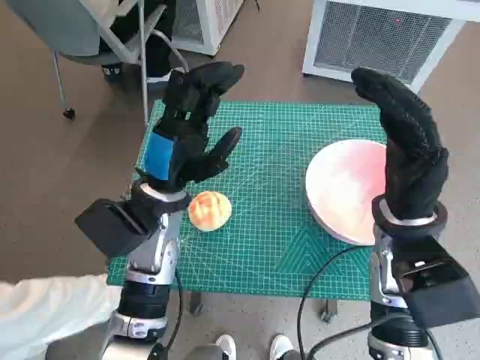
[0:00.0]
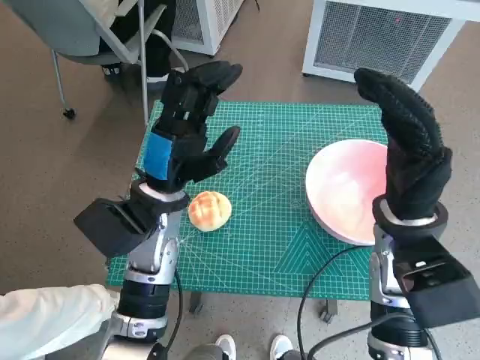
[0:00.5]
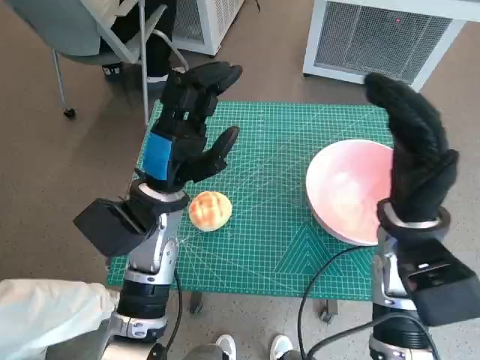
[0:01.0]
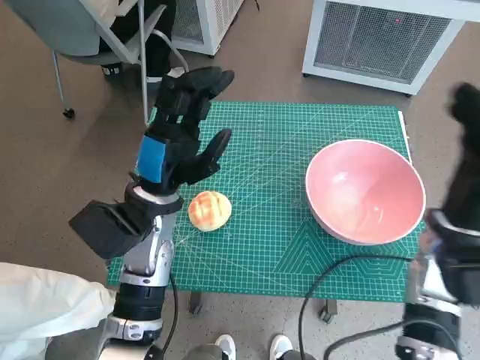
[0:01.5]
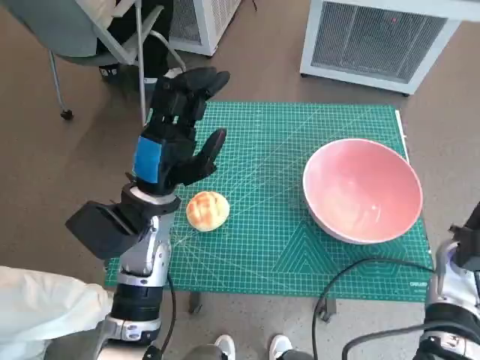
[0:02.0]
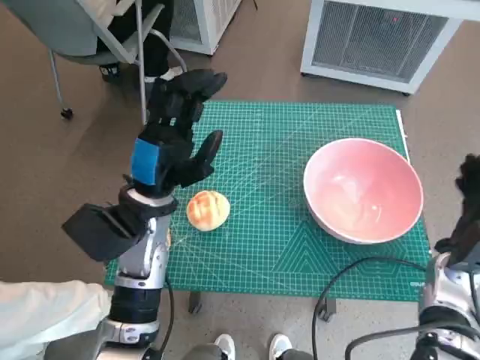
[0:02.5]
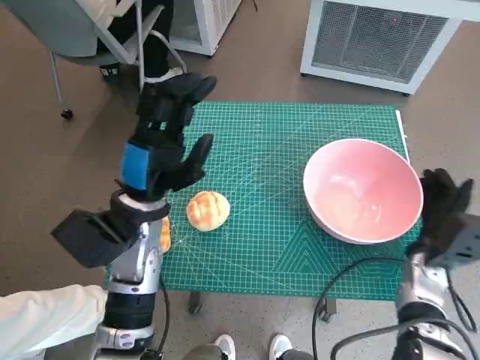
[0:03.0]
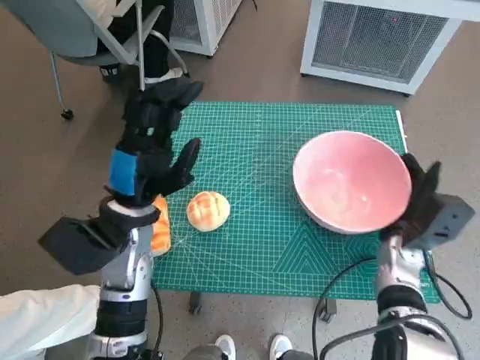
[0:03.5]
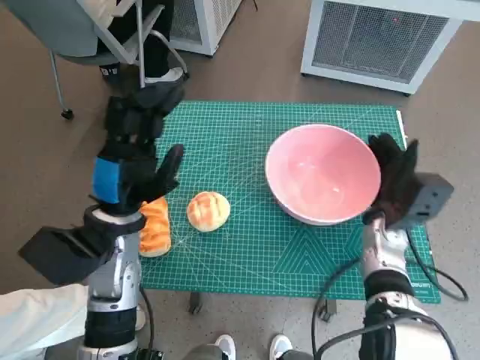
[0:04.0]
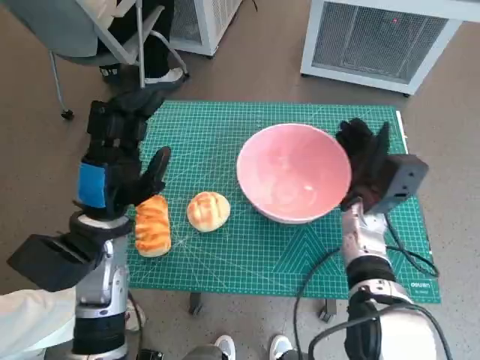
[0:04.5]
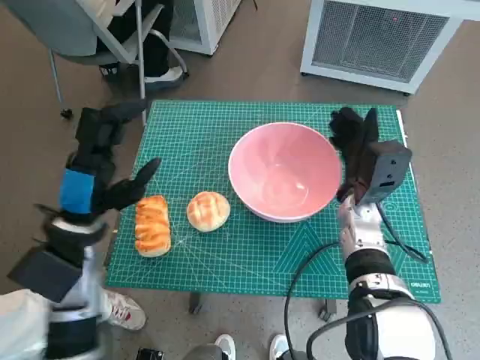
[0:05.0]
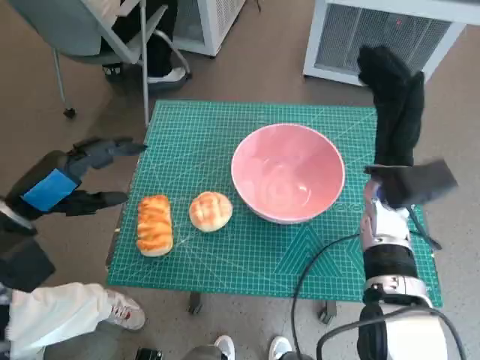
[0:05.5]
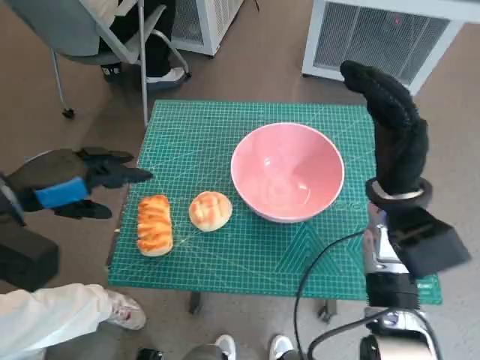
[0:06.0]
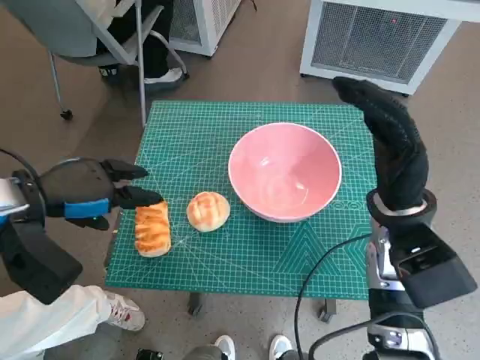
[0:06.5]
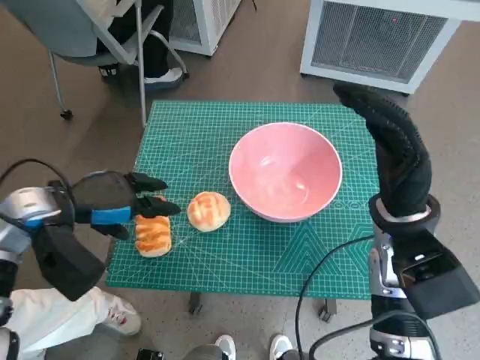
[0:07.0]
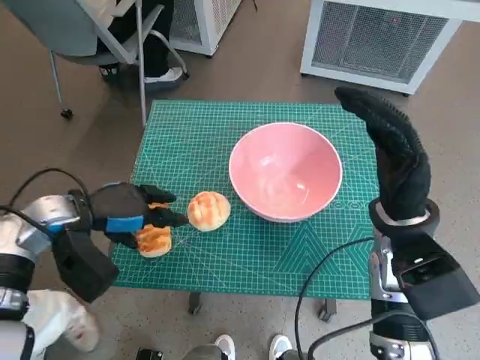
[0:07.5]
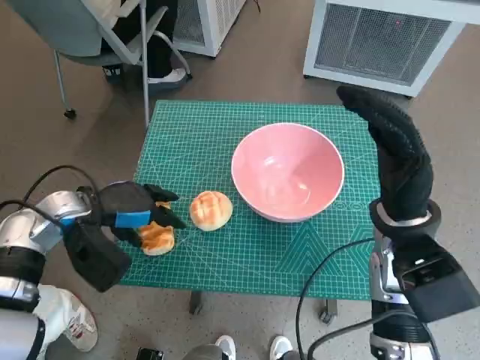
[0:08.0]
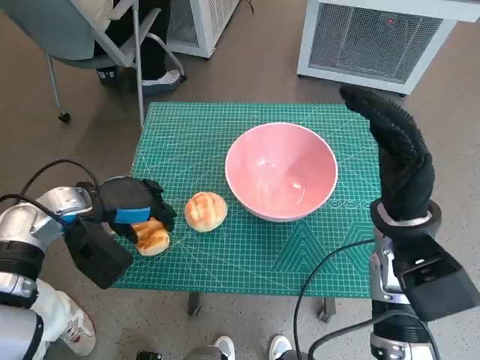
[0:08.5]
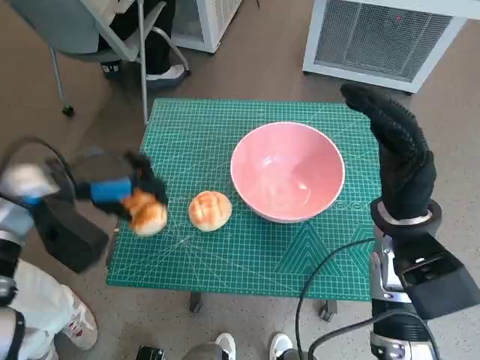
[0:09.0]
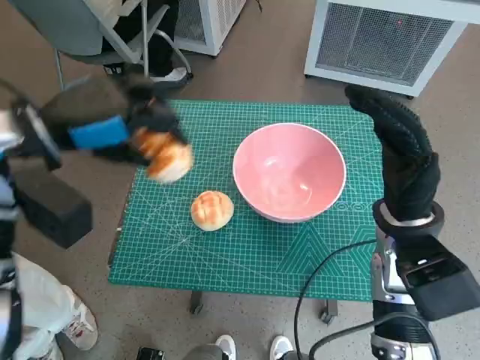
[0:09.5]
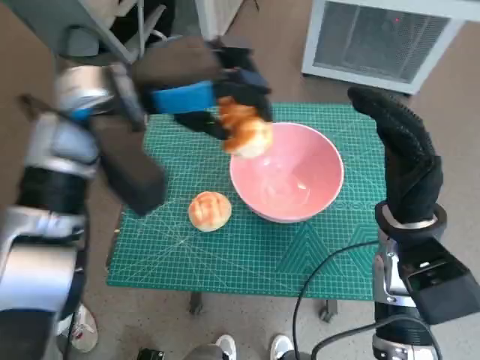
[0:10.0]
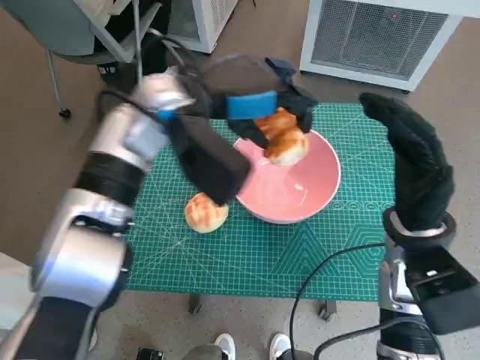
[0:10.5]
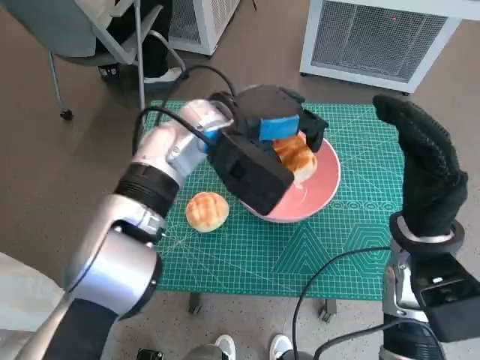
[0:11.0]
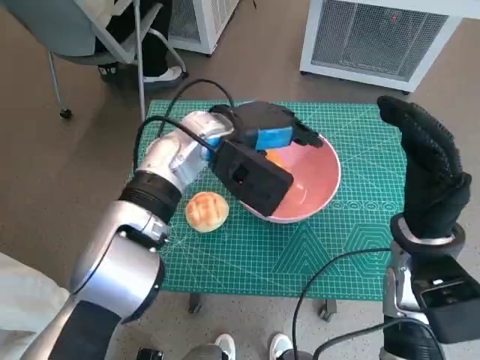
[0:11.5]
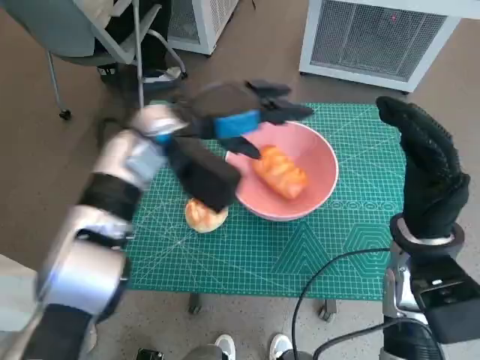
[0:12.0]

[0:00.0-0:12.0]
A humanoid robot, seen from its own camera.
Task of the whole recording: Push the bowl to the center of the table and put the bread into the bowl.
Step, 0.0 to 5.0 s: Move the pink bowl to the center of table with right hand.
Step, 5.5 to 8.5 s: Grasp the long bread with left hand.
Step, 9.0 to 11.5 s: Place the long bread in pink bowl with left hand.
2.0 to 4.0 s: The right hand moves to the left, roughly 10 cm.
4.0 to 6.0 s: The right hand shifts roughly 10 cm upward; the left hand moves to the left and upward, about 15 cm.
6.0 to 8.0 s: The left hand is displaced downward by approximately 10 cm.
8.0 to 10.0 s: The left hand travels upward and to the right by roughly 20 cm.
10.0 to 12.0 s: The left hand heads downward and to the right, covering some 10 cm.

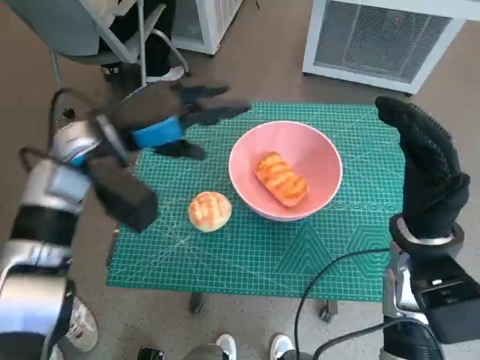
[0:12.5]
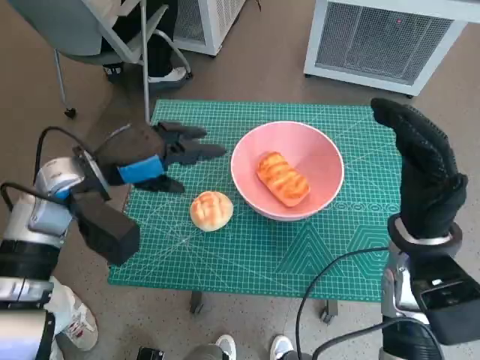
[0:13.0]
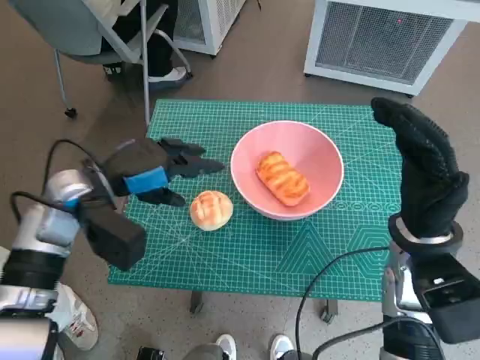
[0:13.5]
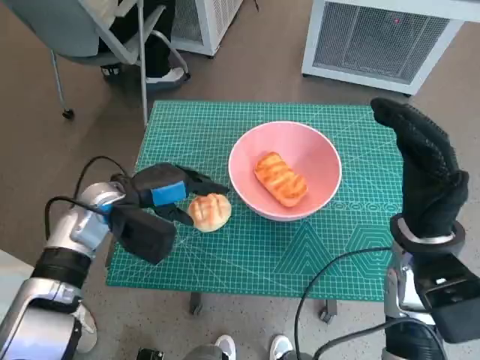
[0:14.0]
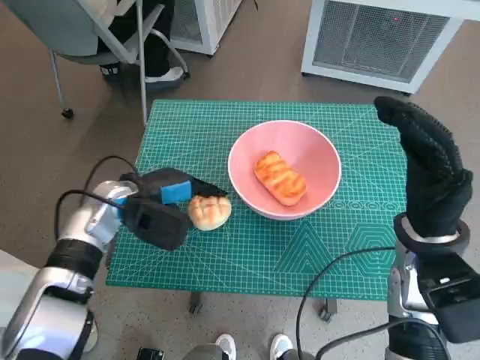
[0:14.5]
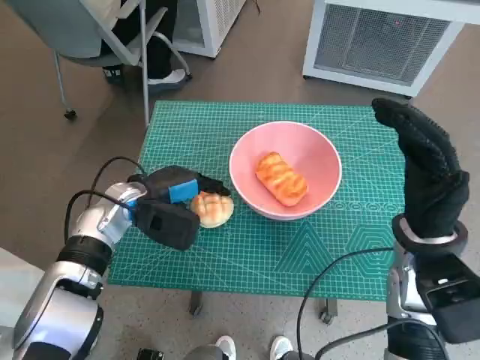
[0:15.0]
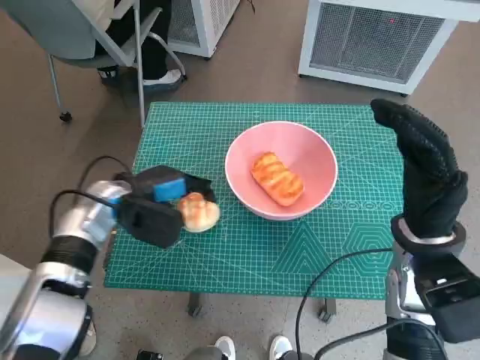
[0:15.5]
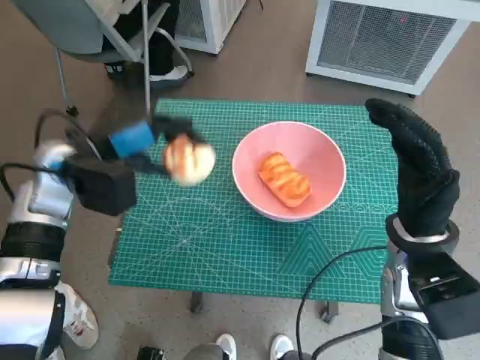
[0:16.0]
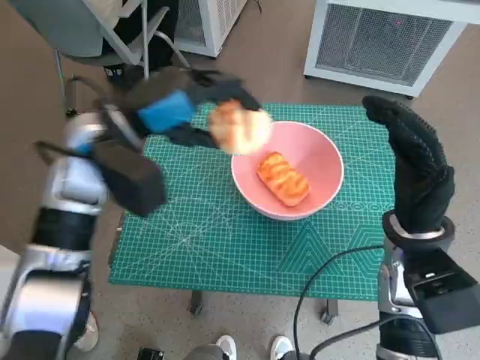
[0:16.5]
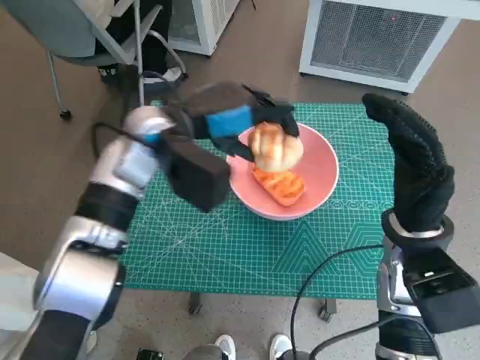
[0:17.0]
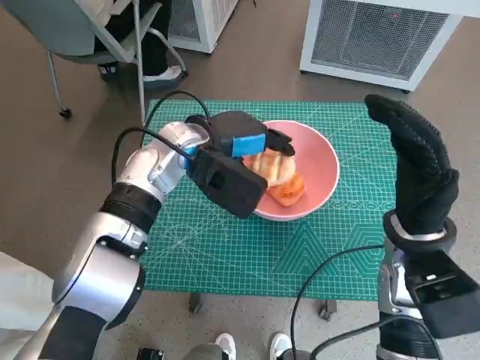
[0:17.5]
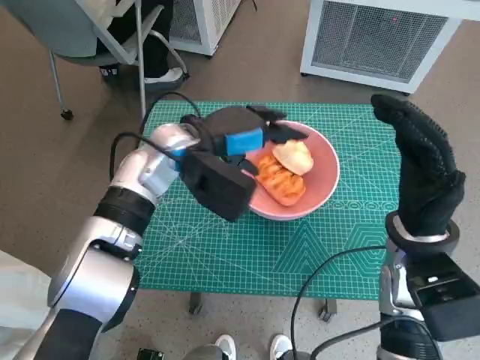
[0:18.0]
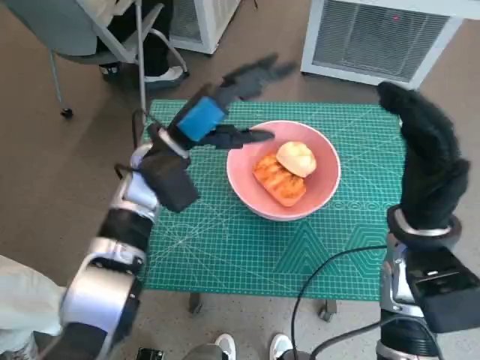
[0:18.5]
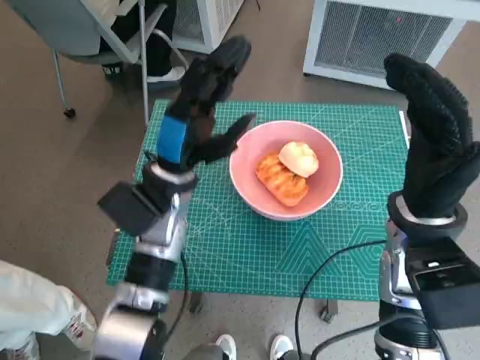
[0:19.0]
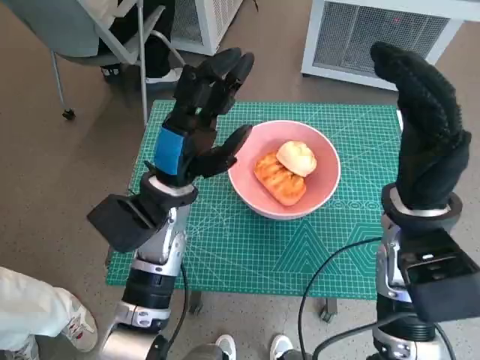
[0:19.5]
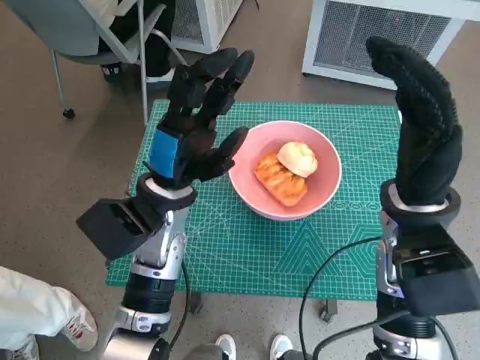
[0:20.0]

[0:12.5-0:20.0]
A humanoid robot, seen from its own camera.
Task of the whole recording: Push the bowl to the center of the table and put the bread into the bowl.
Step, 12.5 to 14.5 s: Grasp the round bread with left hand.
Step, 15.0 to 18.0 s: Place the round bread in pink bowl with left hand.
12.5 to 14.5 s: The left hand shifts about 10 cm downward.
14.5 to 16.5 s: The left hand moves upward, roughly 15 cm.
16.5 to 18.0 s: The left hand is displaced to the right and downward by roughly 10 cm.
18.0 to 20.0 s: The left hand moves backward, some 5 cm, while the right hand changes place by some 5 cm.

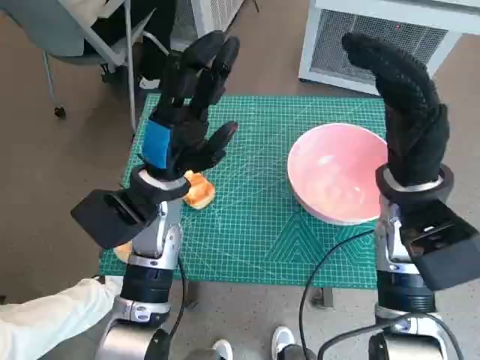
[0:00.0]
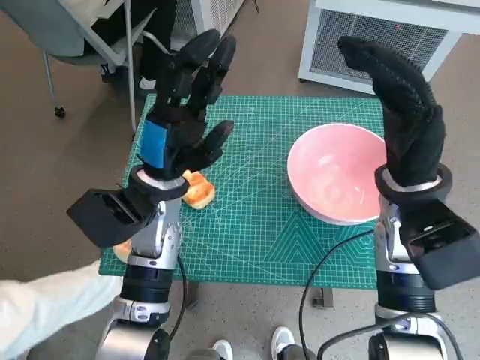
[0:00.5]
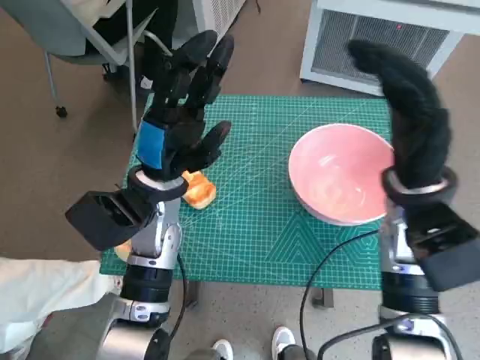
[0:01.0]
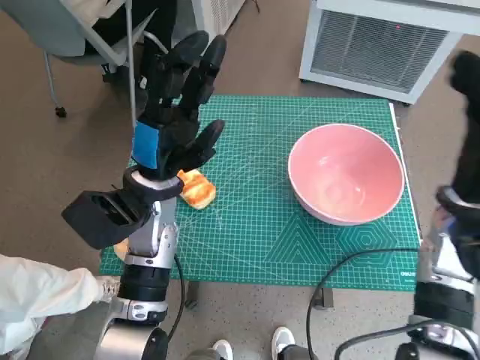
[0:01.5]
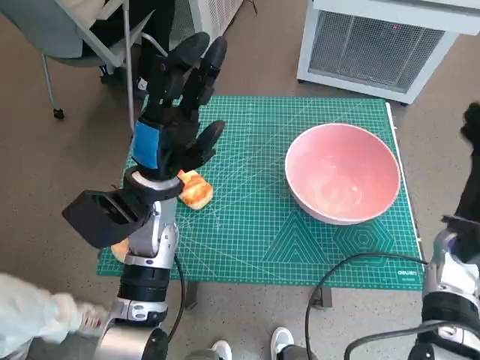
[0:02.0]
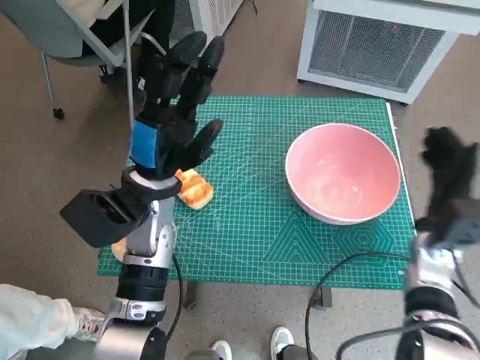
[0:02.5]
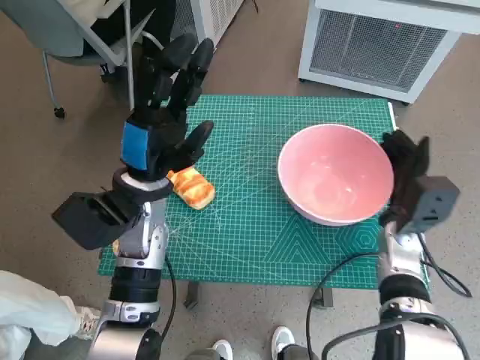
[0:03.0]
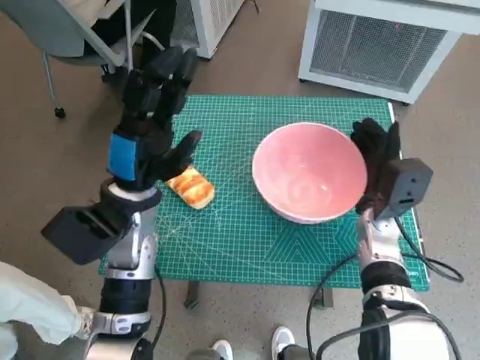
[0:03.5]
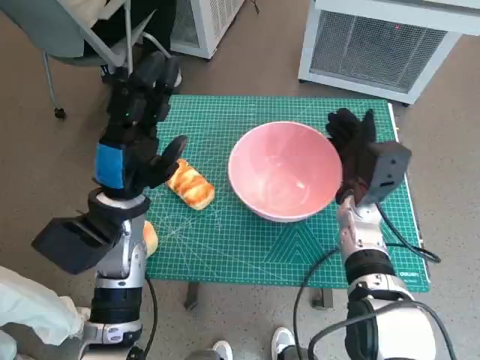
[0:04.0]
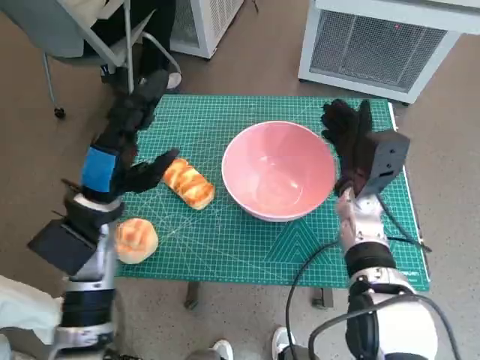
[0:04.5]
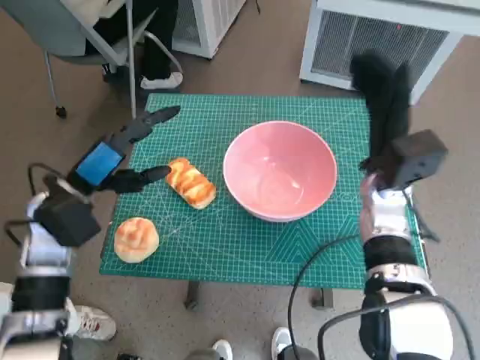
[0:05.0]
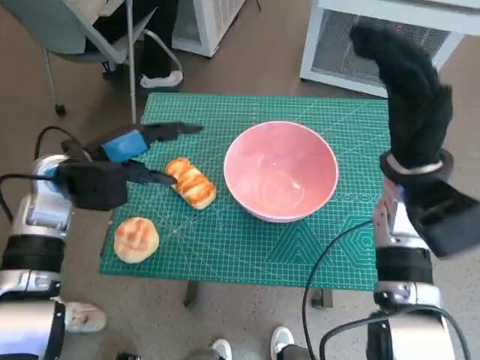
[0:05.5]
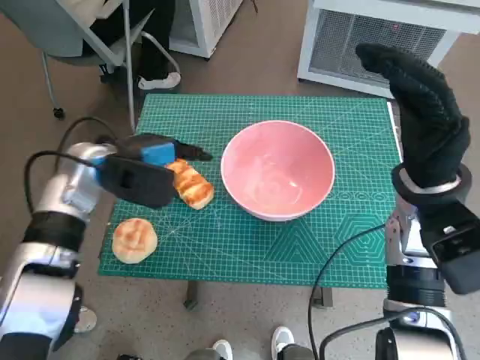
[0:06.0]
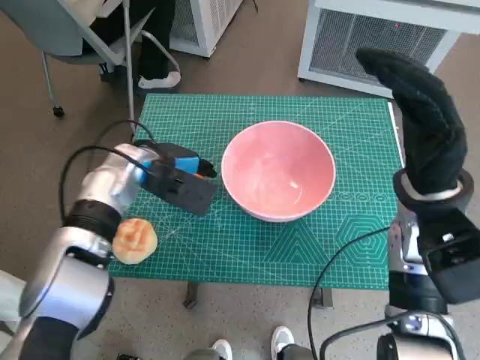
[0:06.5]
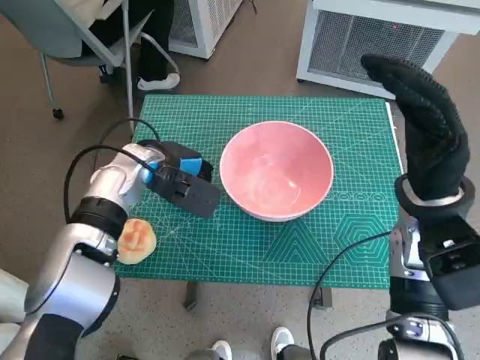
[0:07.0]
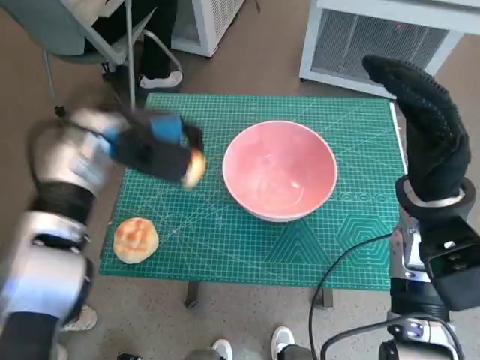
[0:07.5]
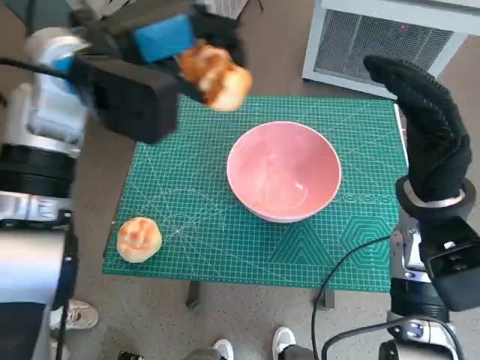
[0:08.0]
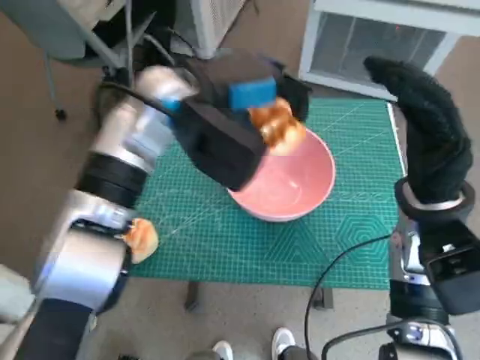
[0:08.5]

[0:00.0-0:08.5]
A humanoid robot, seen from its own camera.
Task of the whole recording: Push the bowl to the center of the table and put the bread into the bowl.
Step, 0.0 to 4.5 s: Move the pink bowl to the center of table with right hand.
Step, 5.0 to 7.0 s: Grasp the long bread with left hand.
2.0 to 4.0 s: The right hand travels to the left and forward by roughly 15 cm.
4.0 to 6.5 s: The left hand goes about 10 cm forward. Meanwhile the right hand travels upward by about 10 cm.
6.5 to 8.5 s: The left hand is displaced upward and to the right by roughly 15 cm.
